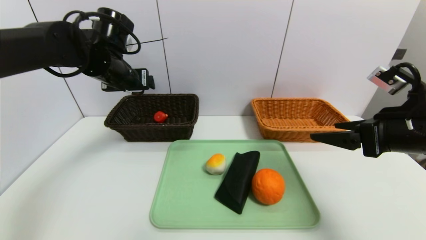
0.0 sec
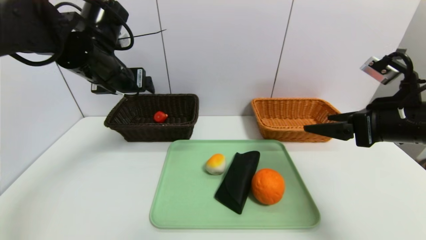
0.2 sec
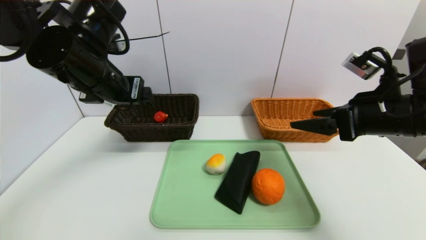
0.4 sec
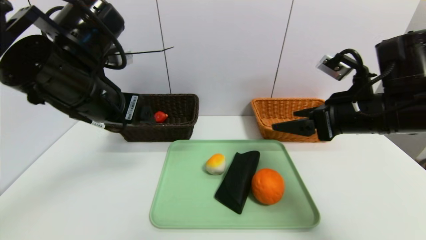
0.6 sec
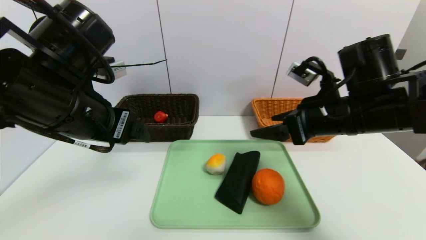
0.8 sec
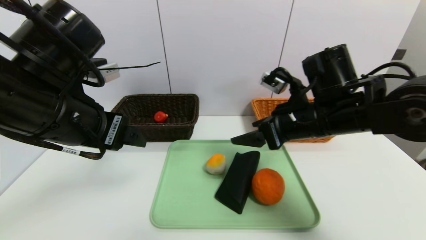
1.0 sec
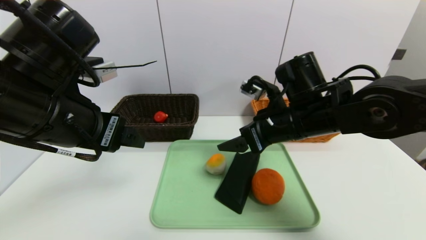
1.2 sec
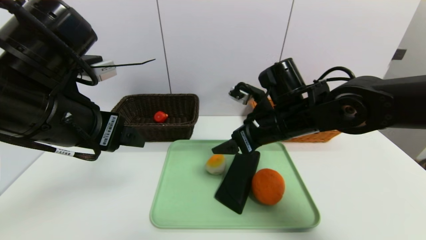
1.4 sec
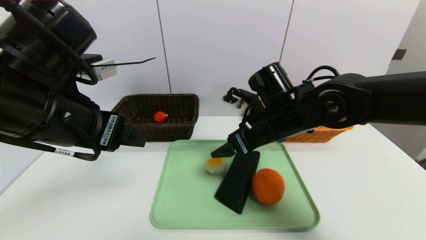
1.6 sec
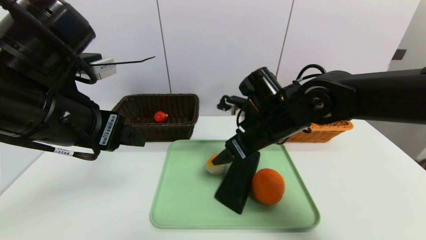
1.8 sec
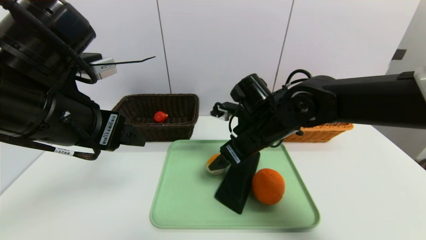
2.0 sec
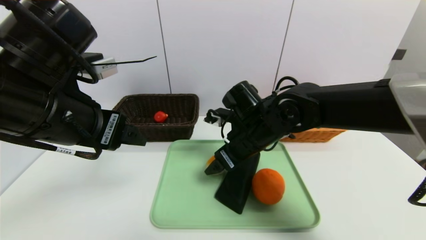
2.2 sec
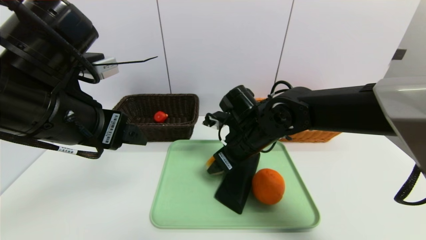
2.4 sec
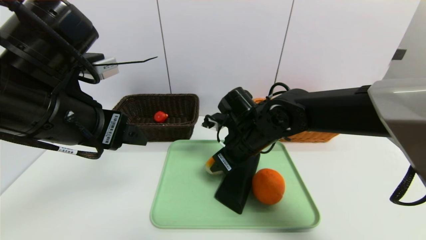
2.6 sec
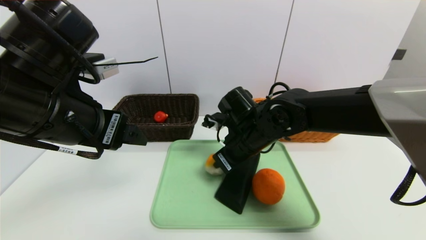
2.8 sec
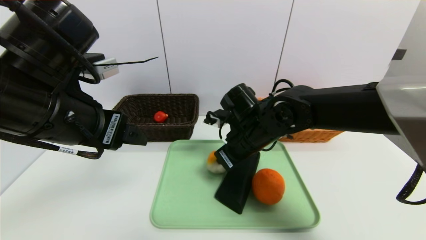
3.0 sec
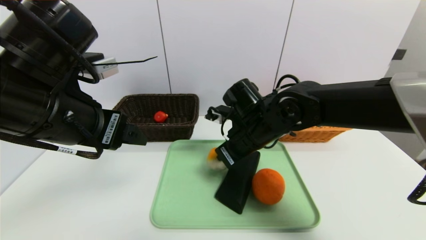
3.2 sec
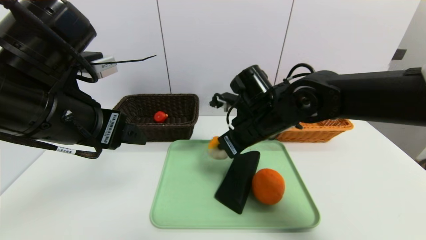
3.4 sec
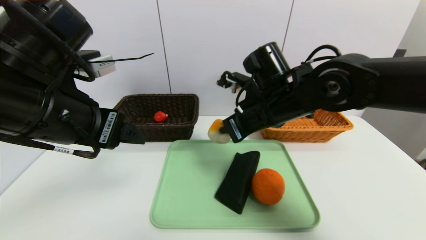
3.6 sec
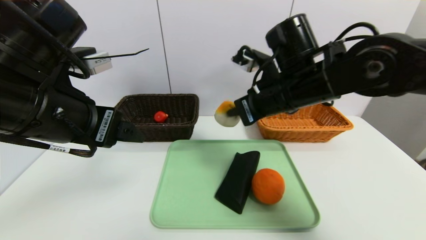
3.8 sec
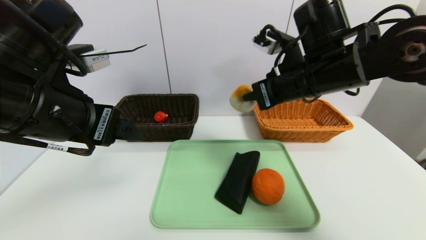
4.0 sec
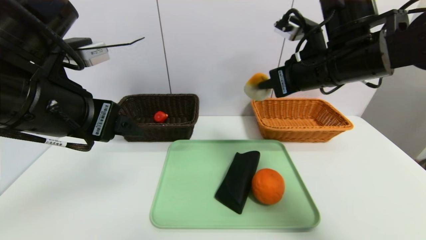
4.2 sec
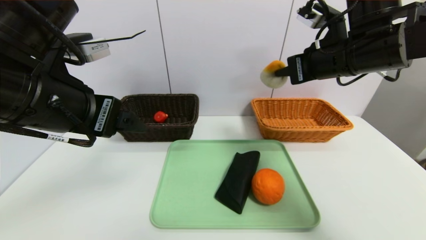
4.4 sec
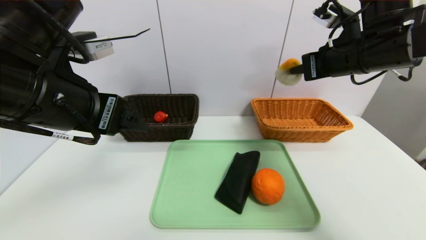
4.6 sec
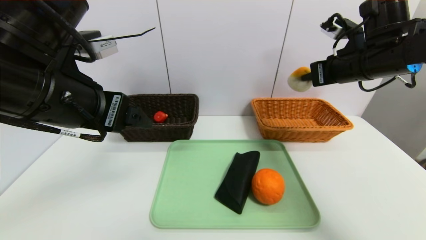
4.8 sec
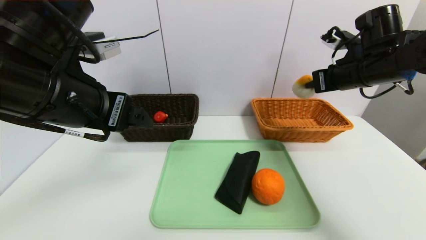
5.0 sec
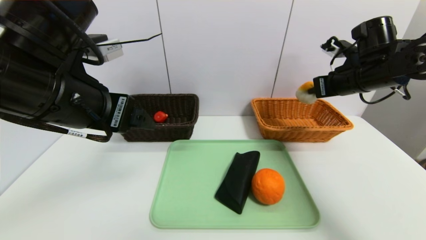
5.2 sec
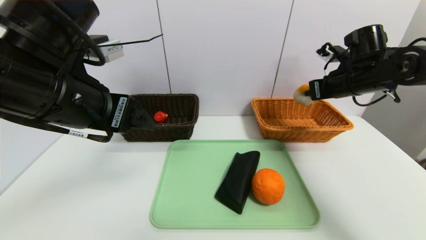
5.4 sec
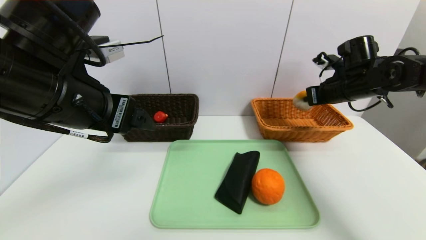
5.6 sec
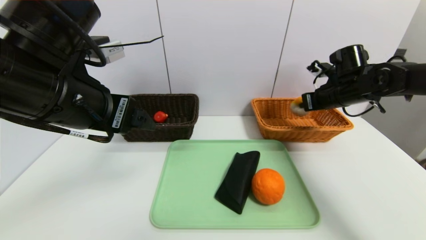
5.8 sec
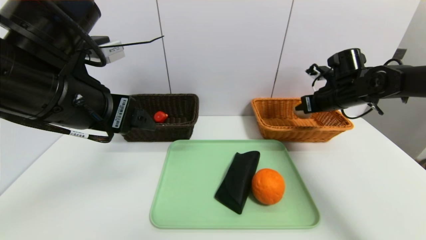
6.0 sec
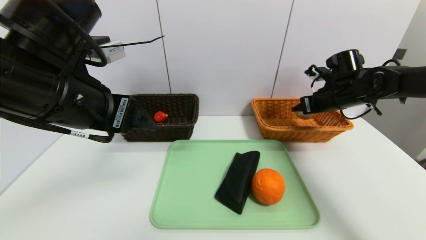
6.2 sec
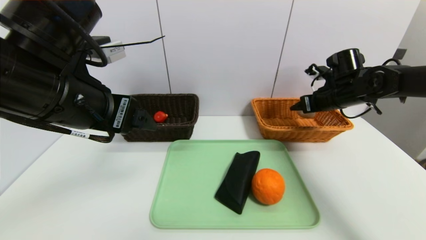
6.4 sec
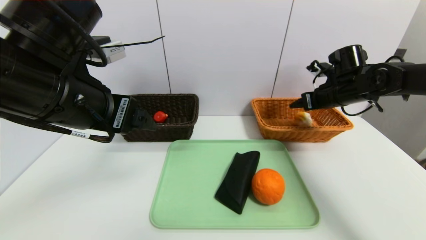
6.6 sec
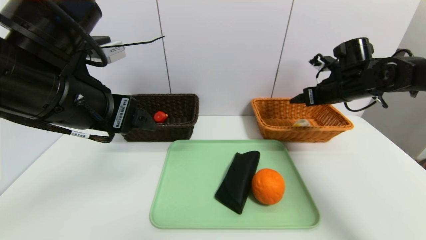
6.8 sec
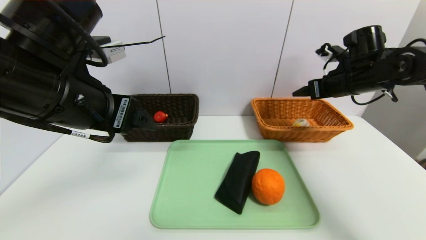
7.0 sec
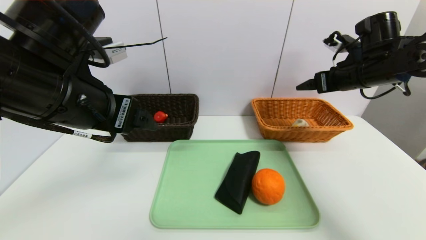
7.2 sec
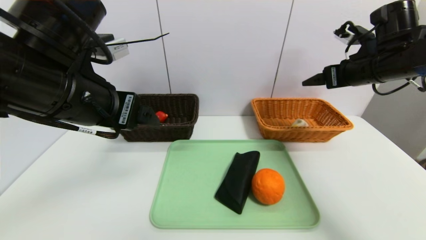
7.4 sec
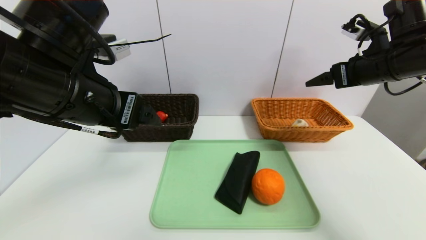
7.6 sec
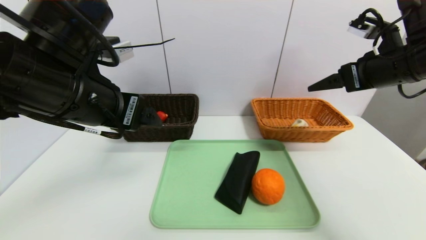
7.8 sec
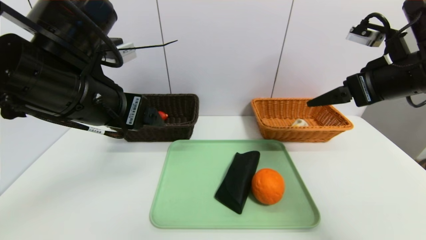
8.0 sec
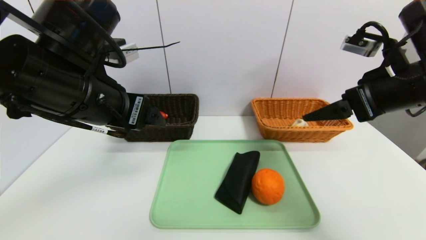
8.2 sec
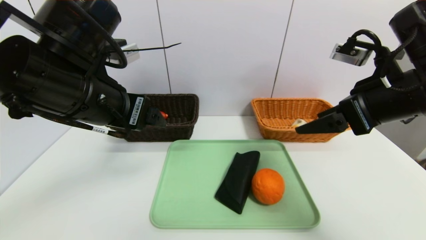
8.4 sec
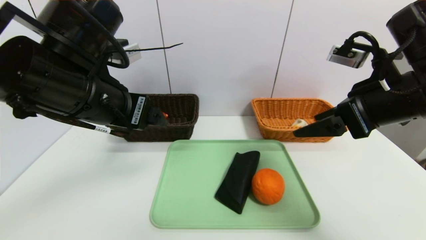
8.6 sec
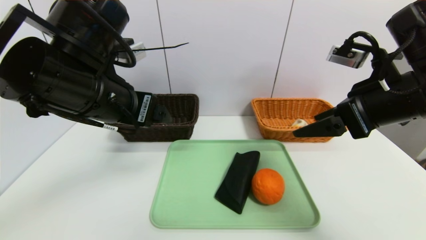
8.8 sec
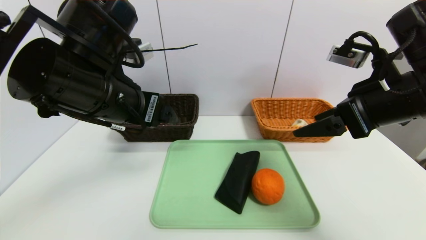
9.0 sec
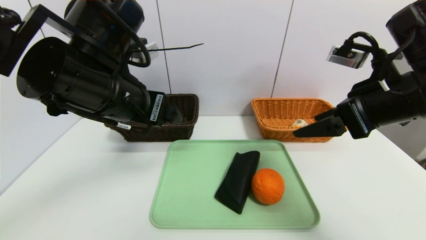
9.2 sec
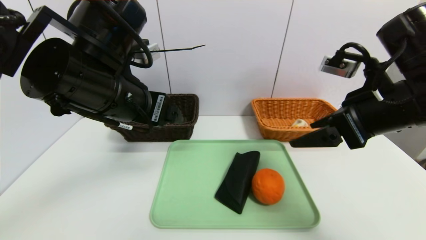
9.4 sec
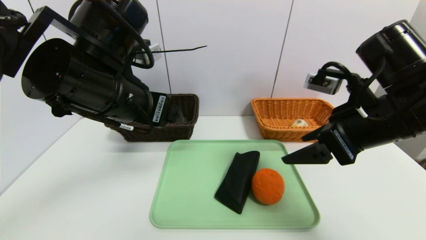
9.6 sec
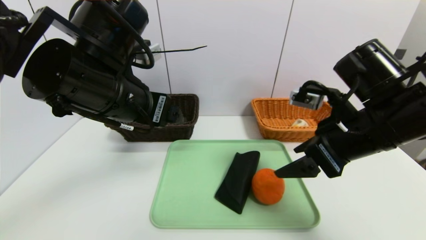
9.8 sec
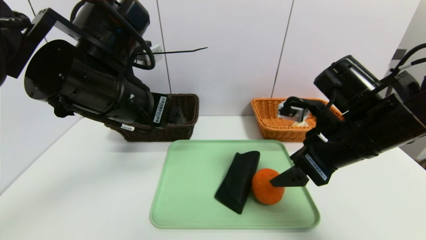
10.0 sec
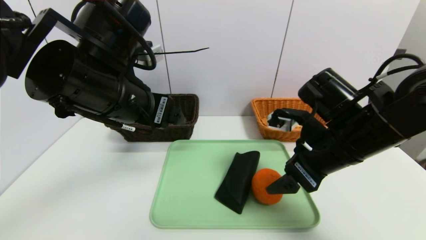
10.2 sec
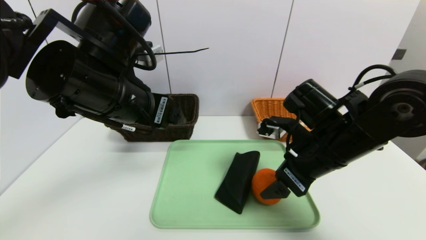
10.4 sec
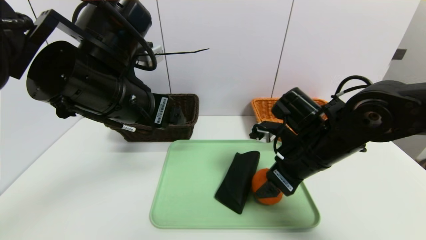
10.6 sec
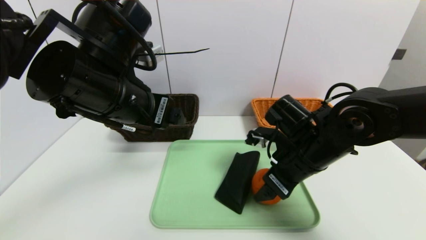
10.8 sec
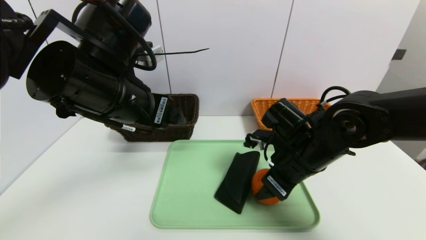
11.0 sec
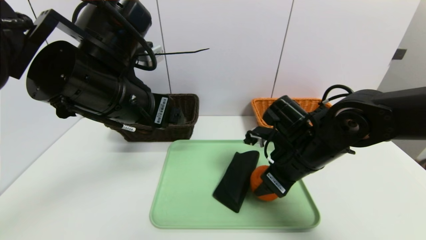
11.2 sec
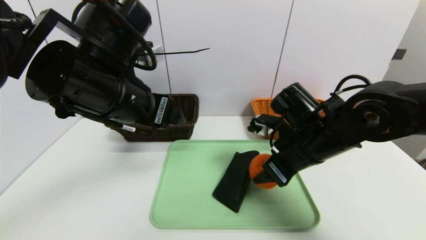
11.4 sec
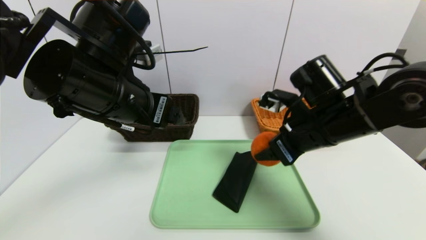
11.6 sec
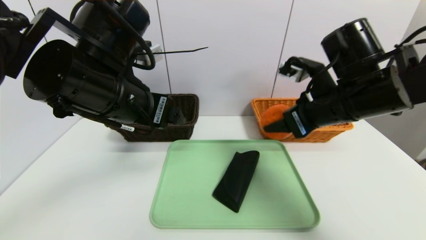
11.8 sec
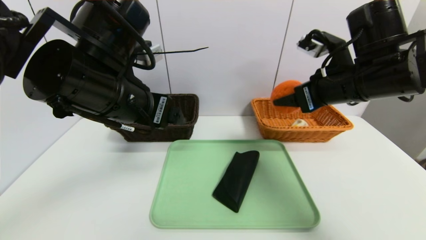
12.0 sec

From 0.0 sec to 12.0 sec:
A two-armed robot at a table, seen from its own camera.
Task of the whole recording: place the food in the right basket with the right gripper, and place the non food items in the left basket with the left gripper.
Step, from 0.0 sec to 7.0 sec: Grasp the egg yolk pastry and put it in the right basket.
From 0.0 sec to 1.6 sec: The right gripper travels to the left and forward by about 20 cm. The left gripper shifts roughly 20 cm backward.
From 1.6 sec to 3.0 sec: The right gripper changes place by approximately 5 cm, and closes up.
From 3.0 sec to 4.4 sec: The right gripper goes some 20 cm upward and to the right.
From 4.4 sec to 6.0 sec: The right gripper travels downward, forward and to the right by approximately 20 cm, and opens up.
From 6.0 sec to 7.6 sec: The right gripper is displaced upward and backward by approximately 15 cm, and opens up.
From 7.6 sec to 9.0 sec: The right gripper heads backward and to the left, covering approximately 10 cm.
From 9.0 sec to 10.4 sec: The right gripper shifts about 10 cm downward and to the left.
From 10.4 sec to 12.0 sec: The right gripper is displaced upward by approximately 10 cm.

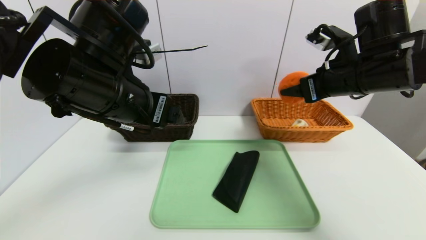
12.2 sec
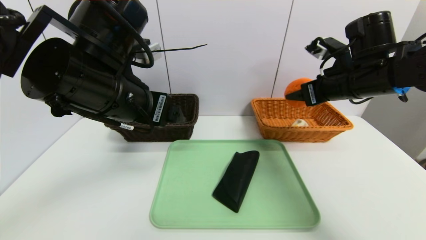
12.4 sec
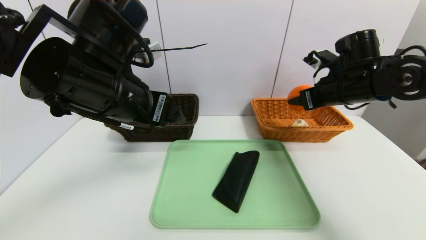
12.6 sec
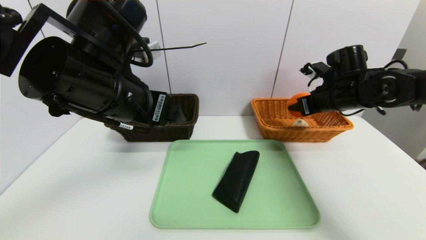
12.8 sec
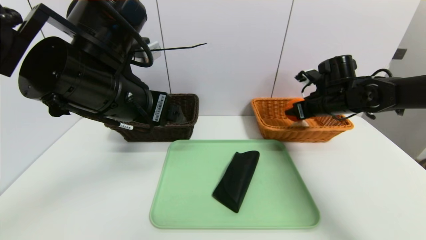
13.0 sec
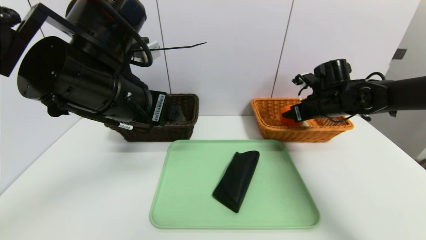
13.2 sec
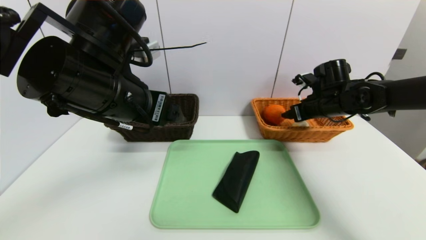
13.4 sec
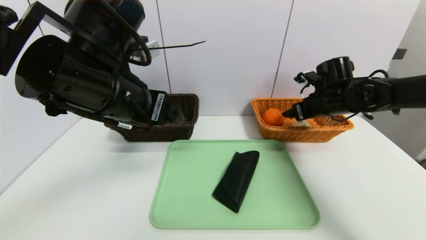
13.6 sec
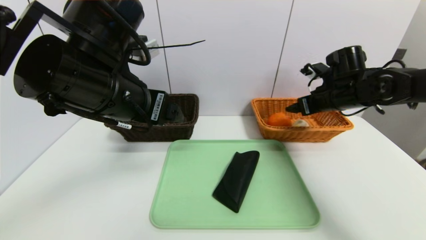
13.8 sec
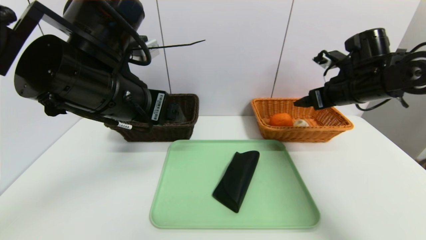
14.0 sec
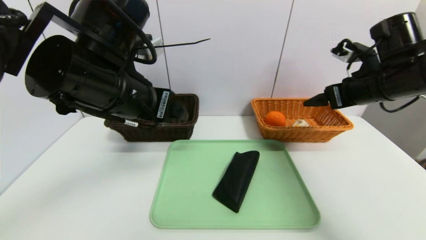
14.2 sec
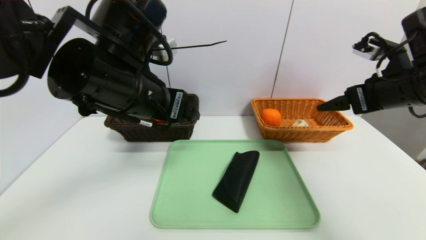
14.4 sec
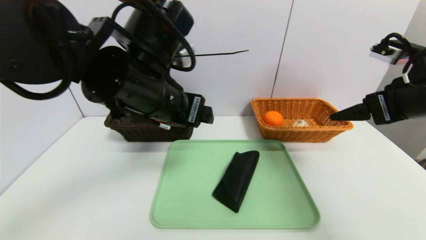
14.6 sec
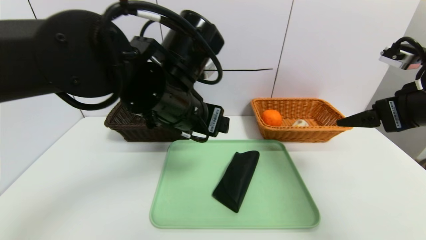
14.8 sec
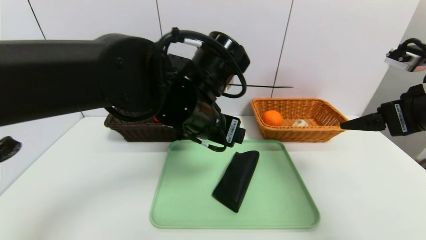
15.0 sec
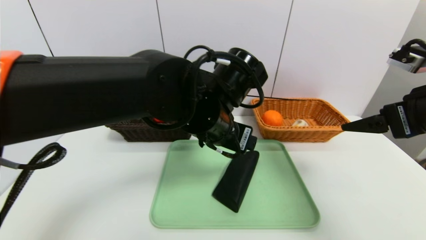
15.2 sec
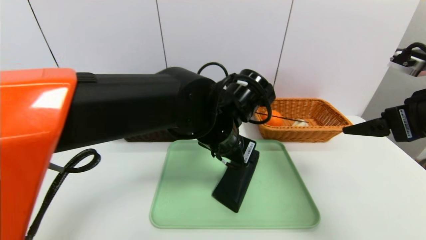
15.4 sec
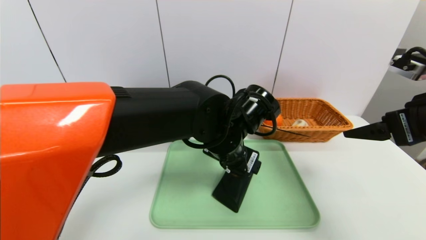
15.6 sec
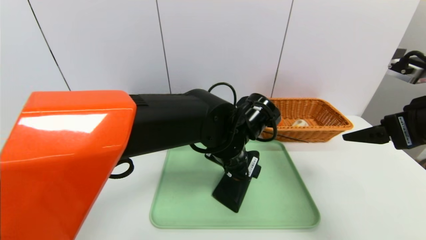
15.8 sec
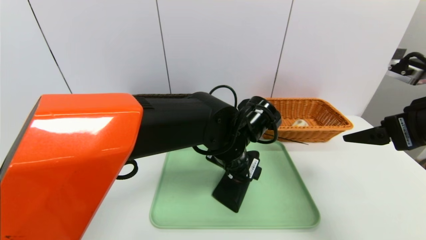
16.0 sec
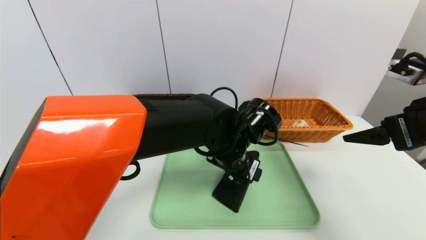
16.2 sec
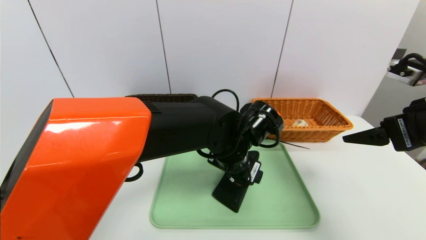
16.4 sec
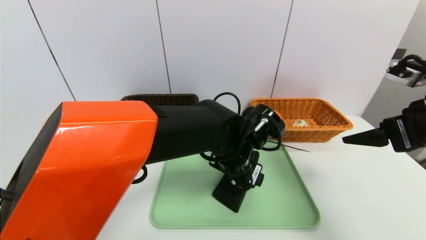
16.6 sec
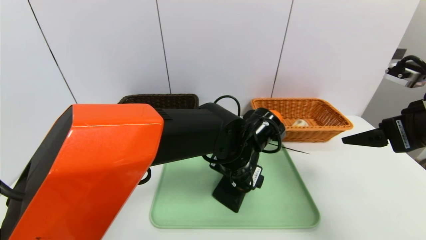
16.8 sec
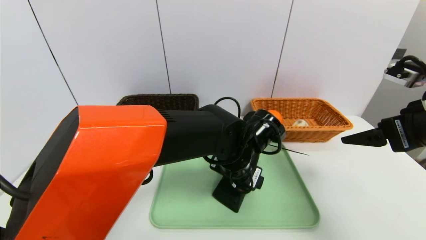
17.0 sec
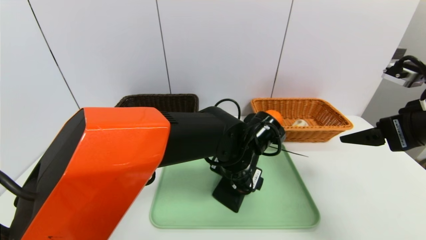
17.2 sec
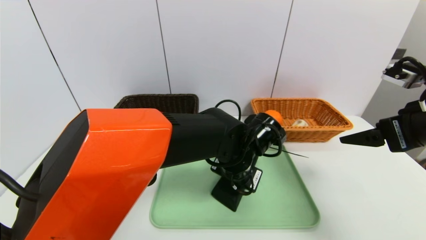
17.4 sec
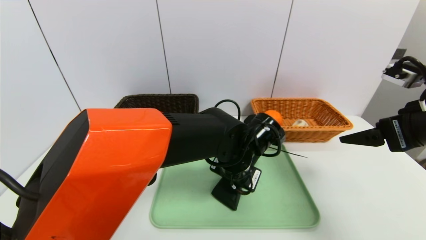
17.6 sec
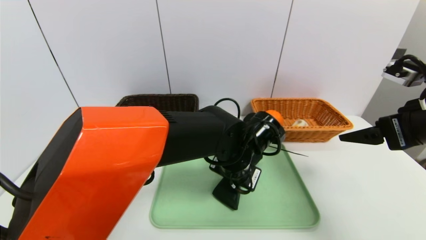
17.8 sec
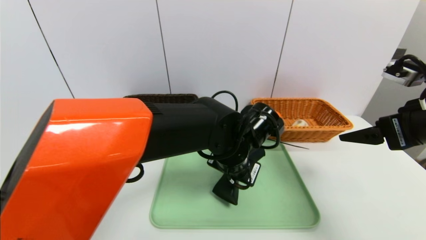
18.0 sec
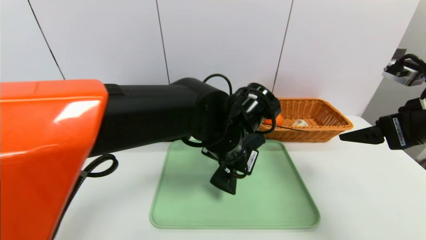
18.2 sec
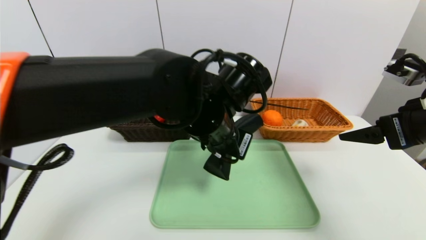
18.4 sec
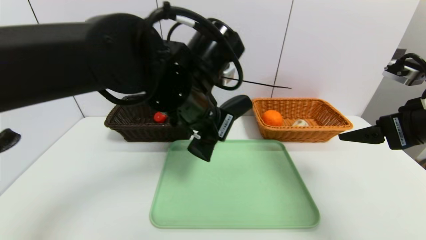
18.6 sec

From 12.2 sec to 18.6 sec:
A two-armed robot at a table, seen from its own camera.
Task of the whole recording: place the food in the right basket with the right gripper, and place the non food items in the left basket with the left gripper.
Step, from 12.2 sec to 14.2 sec: Grasp the orange and put it in the right basket.
From 12.2 sec to 13.8 sec: The right gripper travels forward and downward by approximately 10 cm.
From 13.8 sec to 15.4 sec: The left gripper moves to the right and downward, about 15 cm; the right gripper moves backward, some 20 cm.
From 15.4 sec to 17.0 sec: The left gripper heads downward, covering about 5 cm.
From 17.0 sec to 18.6 sec: The left gripper shifts approximately 15 cm upward and to the left, and closes.
